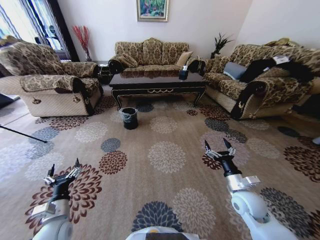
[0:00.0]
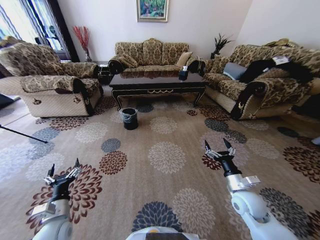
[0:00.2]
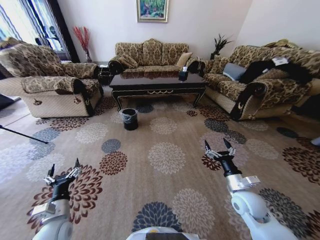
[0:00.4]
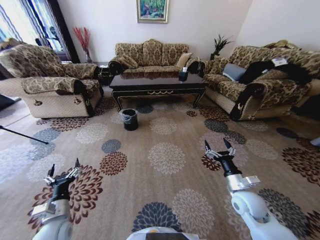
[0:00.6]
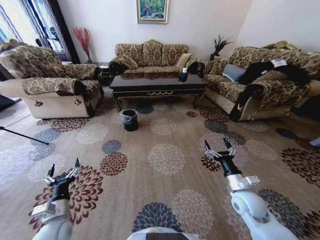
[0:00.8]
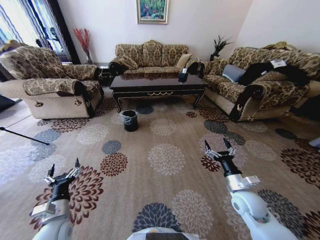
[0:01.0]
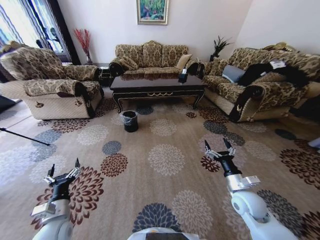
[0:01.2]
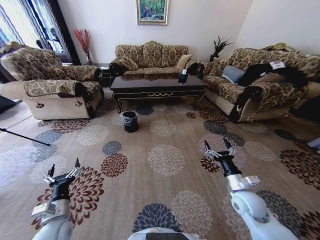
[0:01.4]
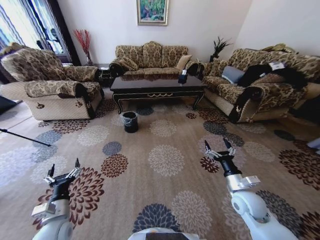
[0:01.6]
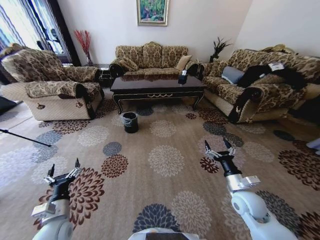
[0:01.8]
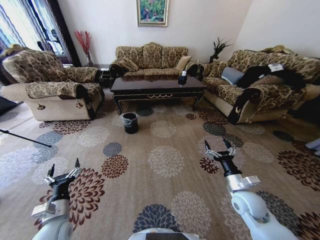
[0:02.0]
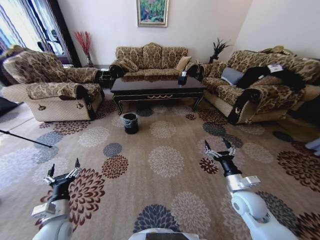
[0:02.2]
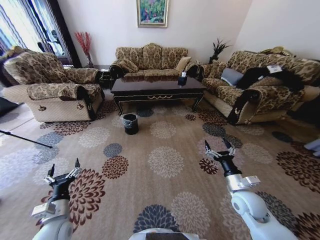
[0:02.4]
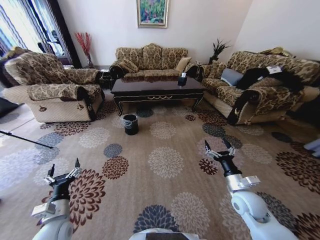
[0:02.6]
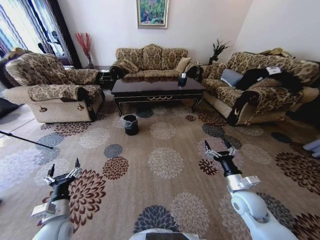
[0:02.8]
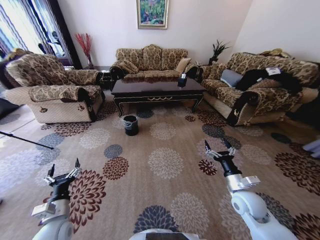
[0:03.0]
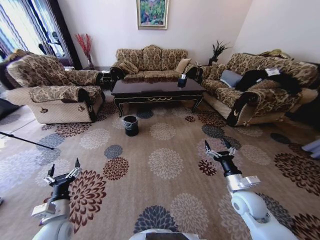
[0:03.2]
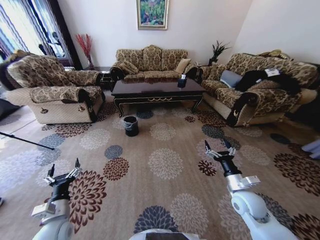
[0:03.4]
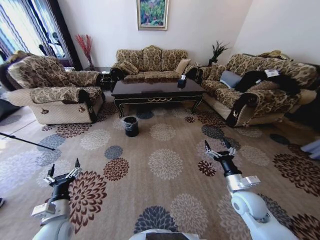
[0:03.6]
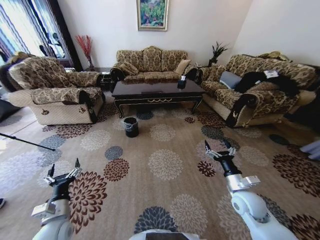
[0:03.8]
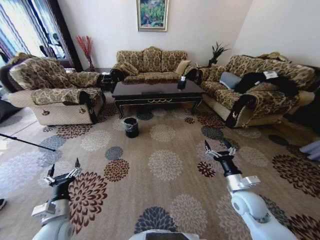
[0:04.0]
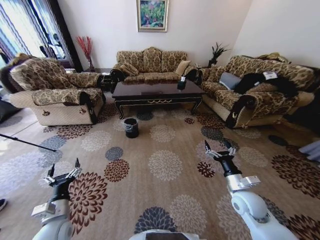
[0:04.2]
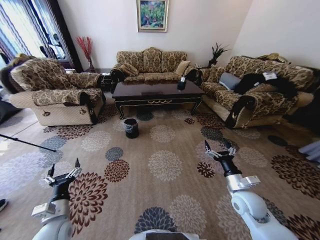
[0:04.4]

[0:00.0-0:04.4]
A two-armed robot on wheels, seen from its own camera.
Task of the whole recording: Move to the front of the table and pick up the trash from the floor, then place it into the trash bin.
0:03.0 to 0:04.4: Both grippers stay about where they are.
